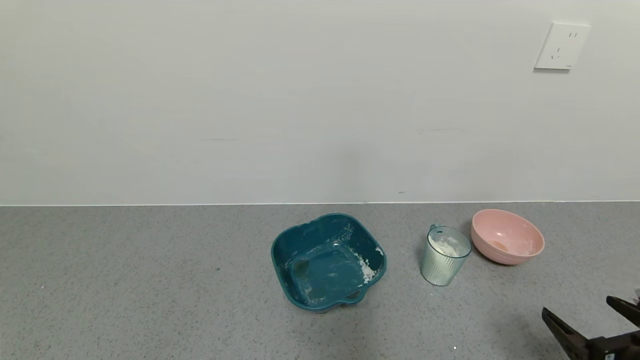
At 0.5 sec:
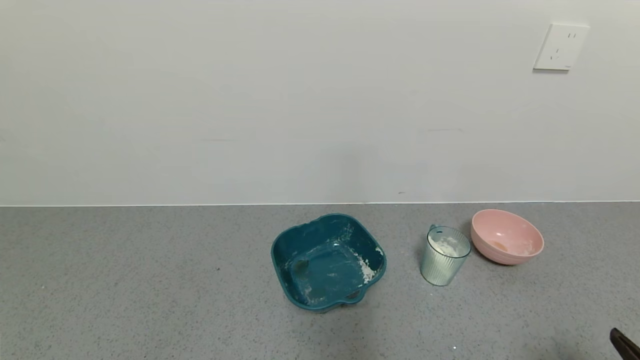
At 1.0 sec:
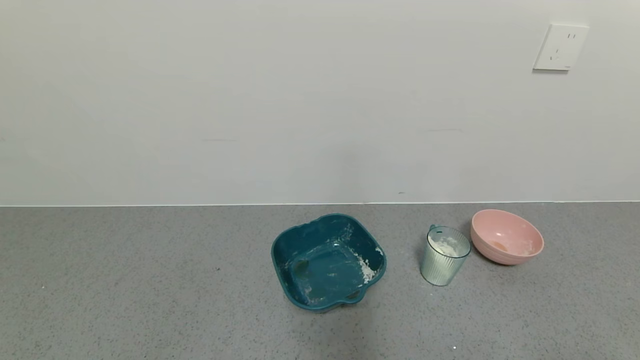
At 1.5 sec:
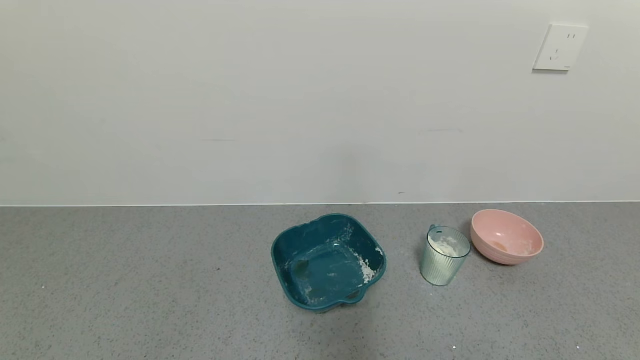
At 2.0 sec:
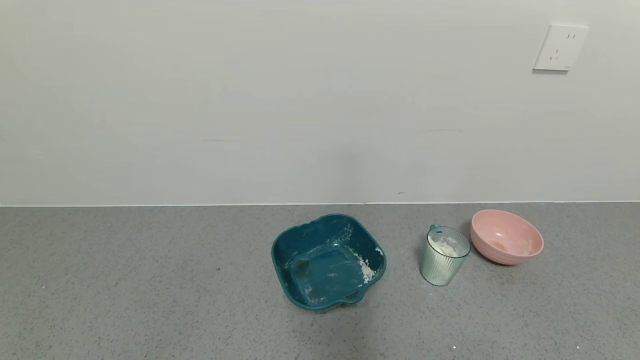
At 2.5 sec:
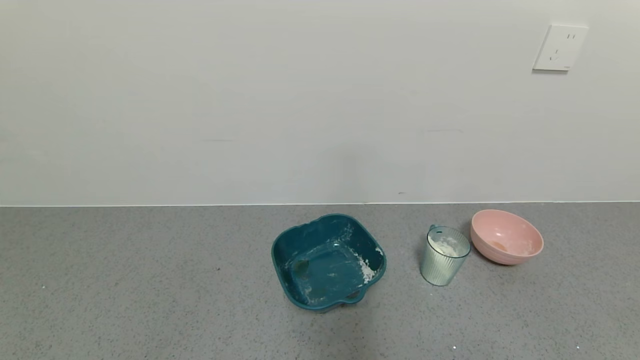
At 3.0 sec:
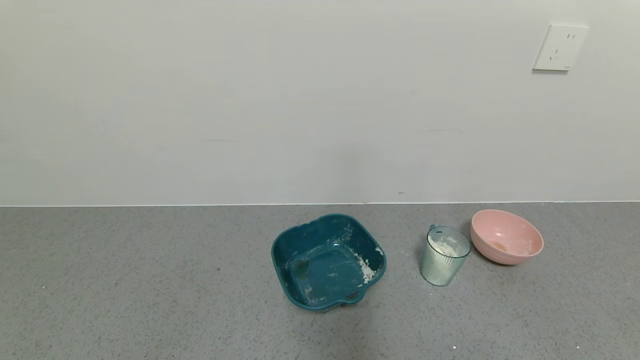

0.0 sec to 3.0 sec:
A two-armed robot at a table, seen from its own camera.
Task of the whole recording: use a gripper to pick up the cup and pour the powder into a bowl or tray.
0.0 sec to 1.5 sec: The right gripper is displaced backward by approximately 15 cm.
